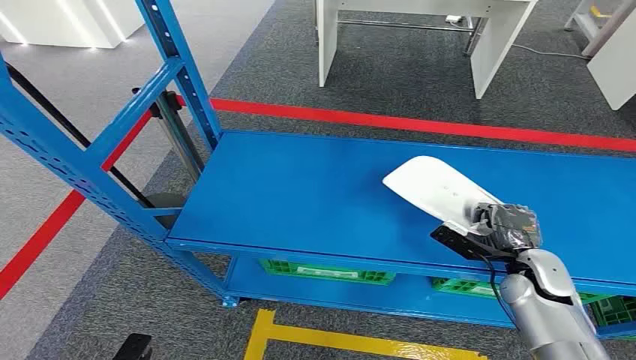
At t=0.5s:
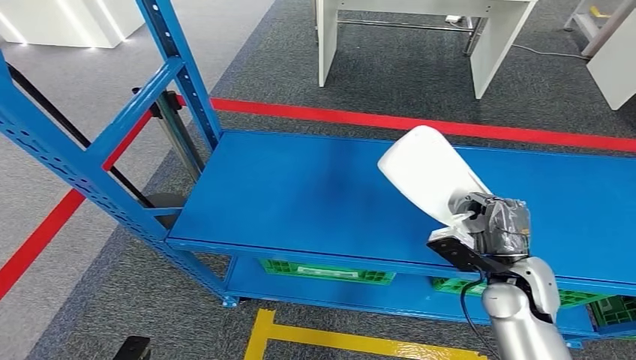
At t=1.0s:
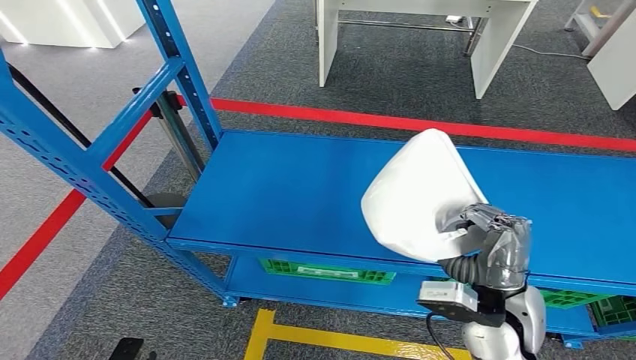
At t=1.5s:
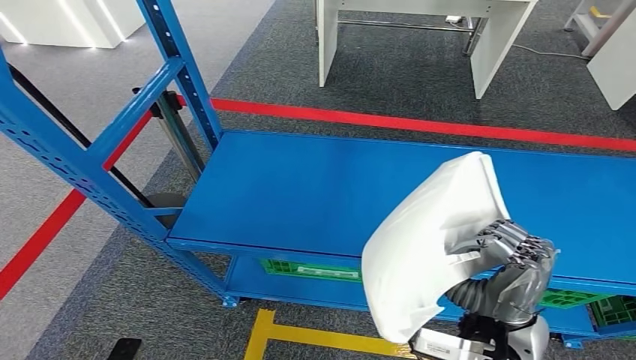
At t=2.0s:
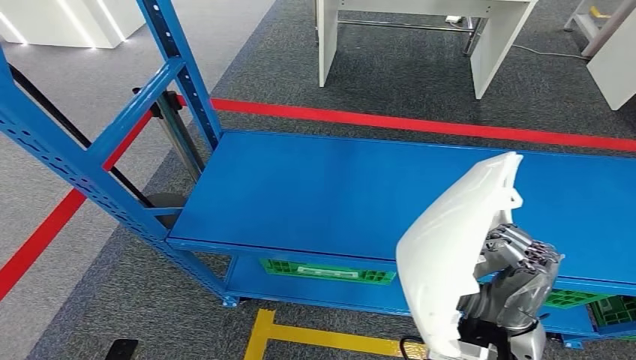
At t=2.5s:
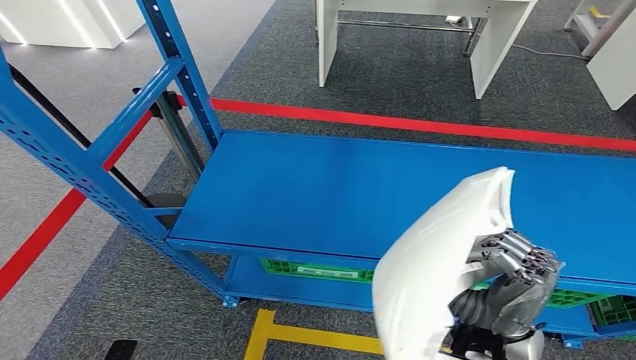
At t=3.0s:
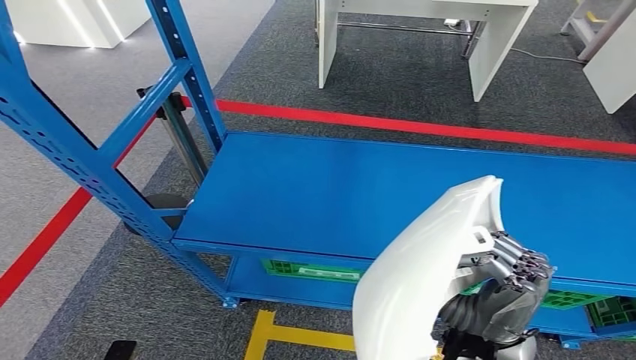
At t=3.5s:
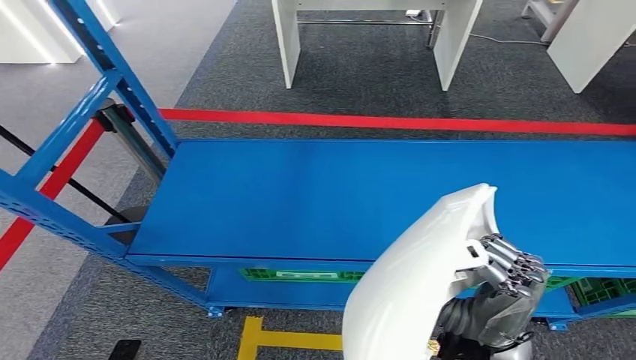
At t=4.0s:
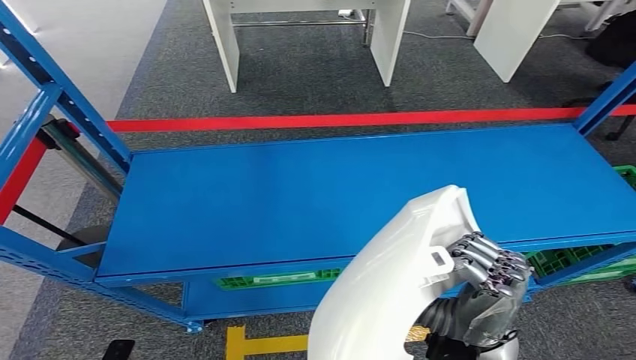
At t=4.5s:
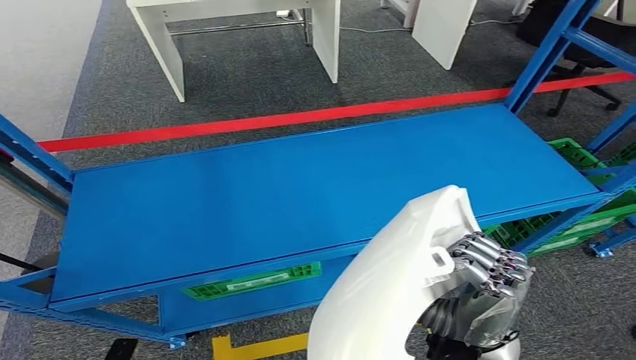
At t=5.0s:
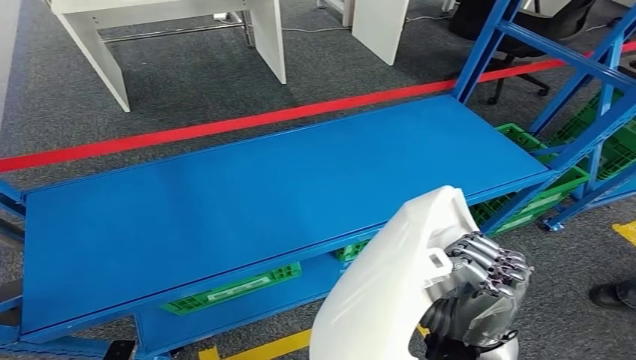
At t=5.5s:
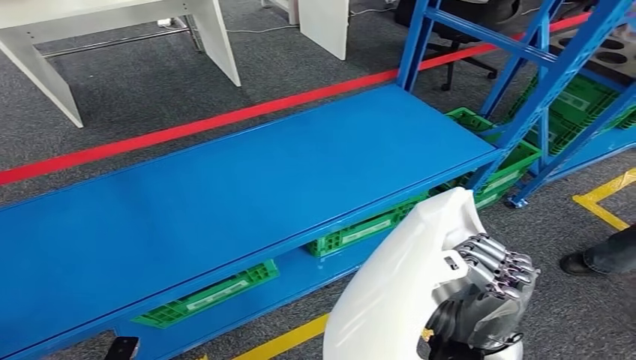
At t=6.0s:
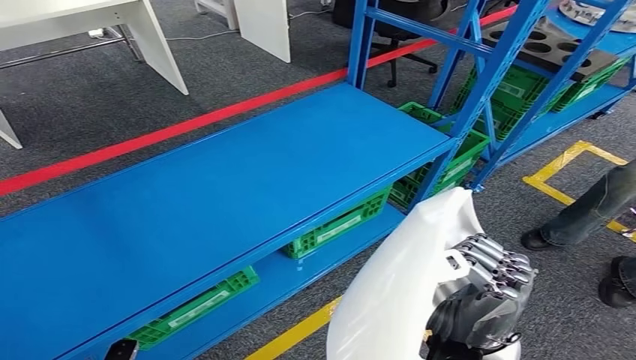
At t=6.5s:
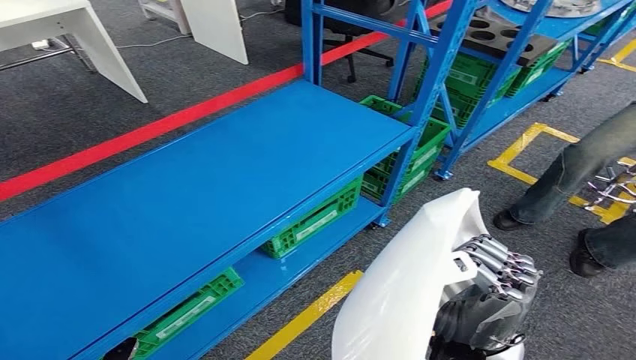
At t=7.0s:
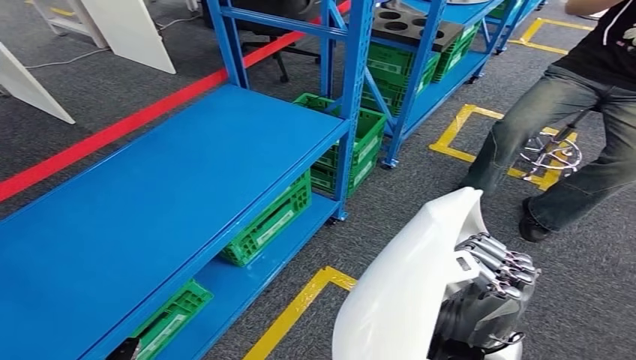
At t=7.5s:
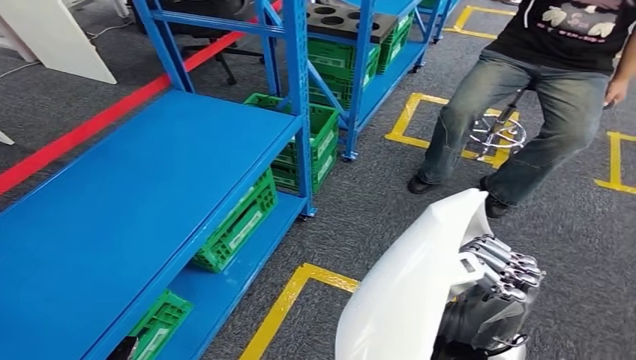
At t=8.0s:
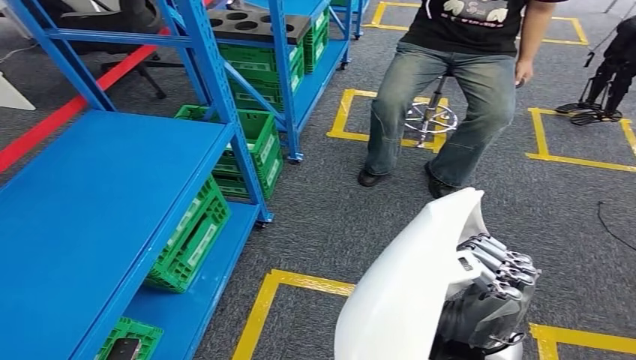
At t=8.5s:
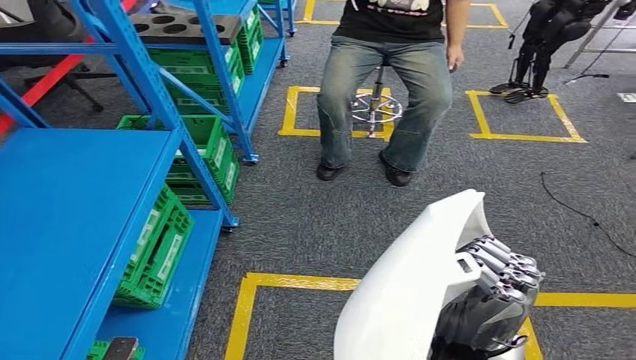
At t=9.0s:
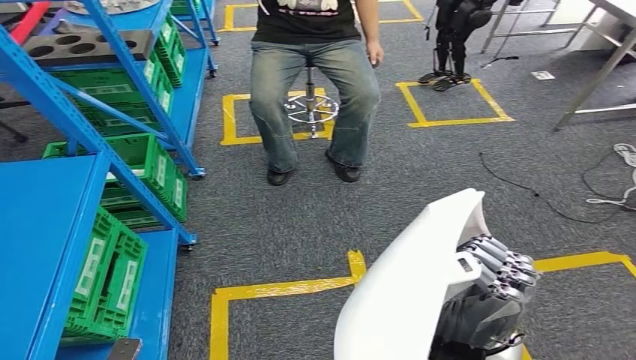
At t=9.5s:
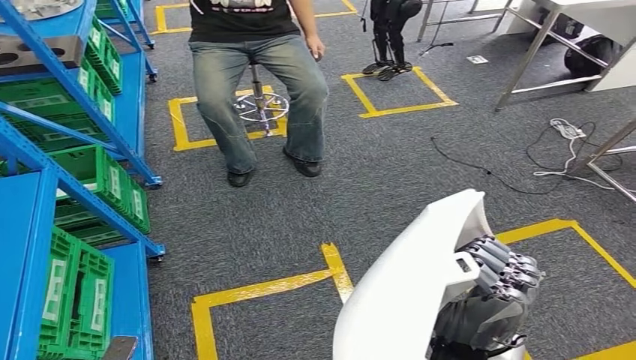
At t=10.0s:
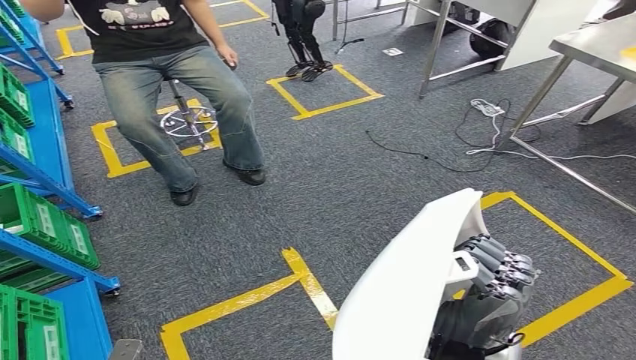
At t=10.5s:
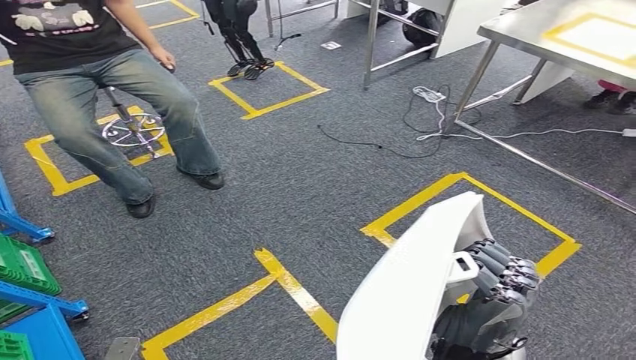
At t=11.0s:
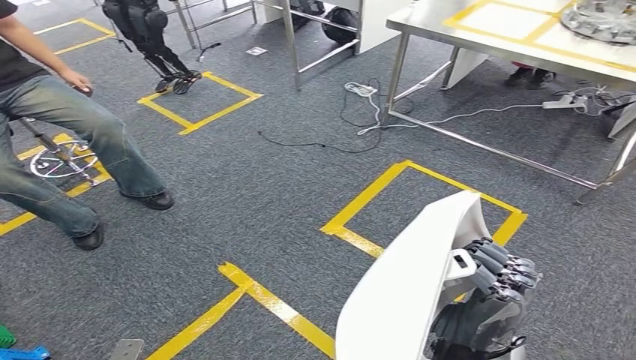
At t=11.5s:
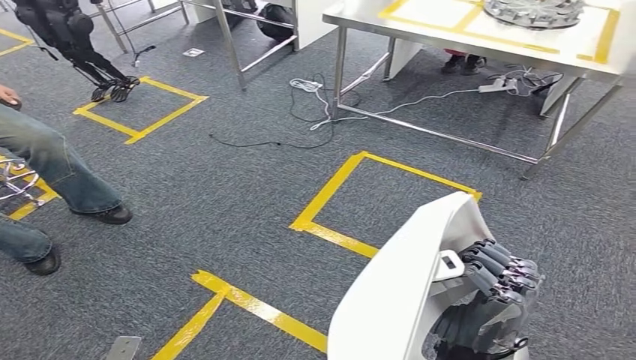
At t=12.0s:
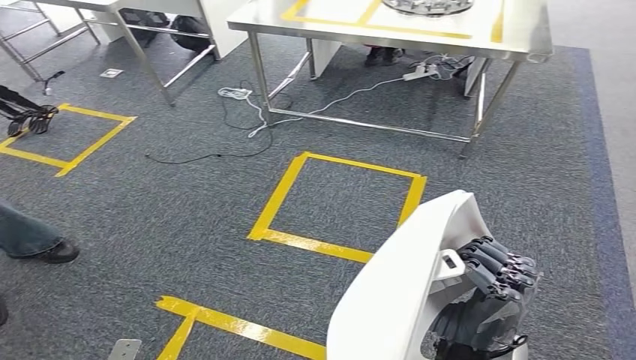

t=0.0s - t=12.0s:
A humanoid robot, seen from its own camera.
Step, t=0.0s - t=1.0s: Pick up the small component from the shelf.

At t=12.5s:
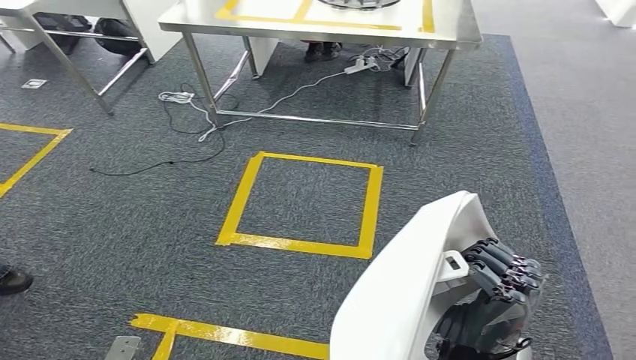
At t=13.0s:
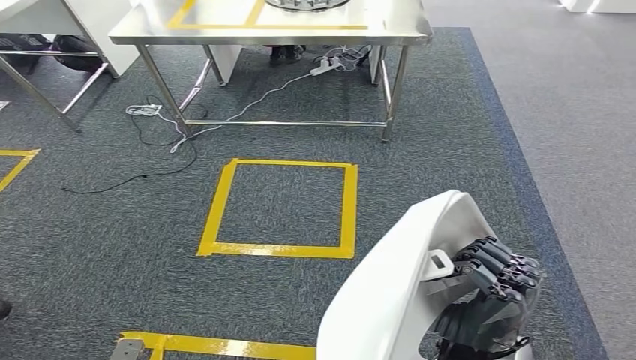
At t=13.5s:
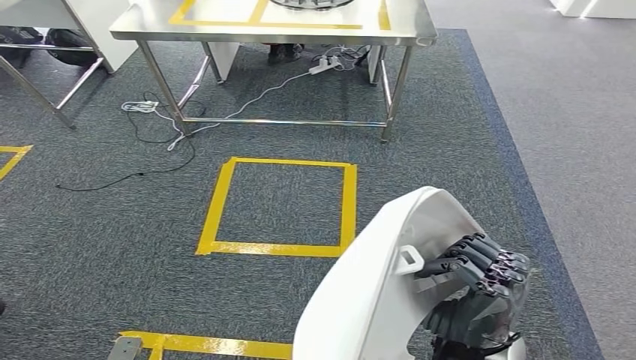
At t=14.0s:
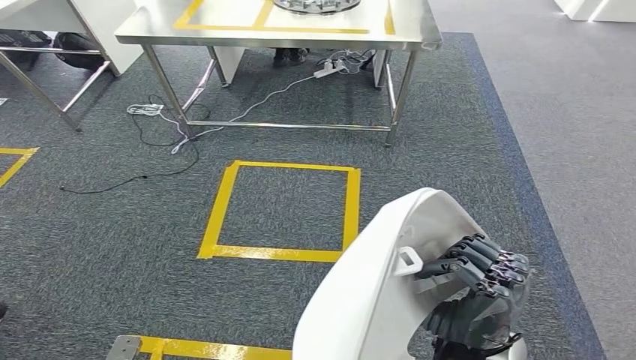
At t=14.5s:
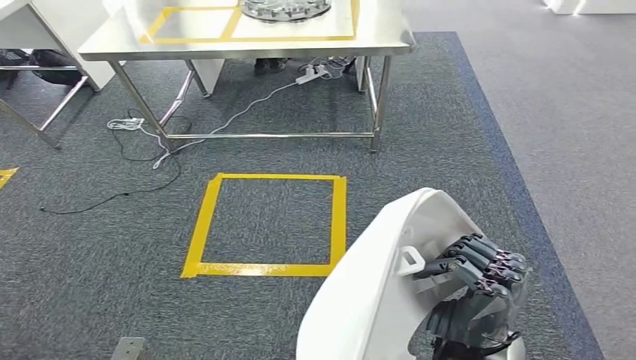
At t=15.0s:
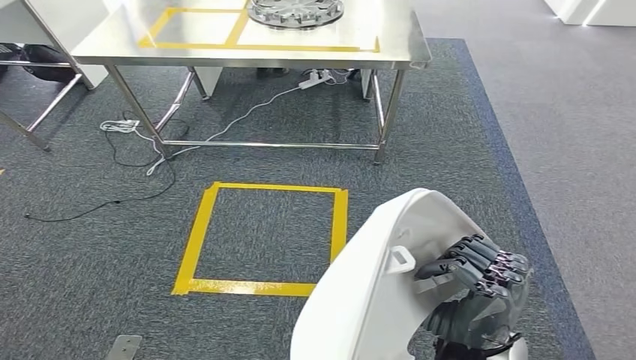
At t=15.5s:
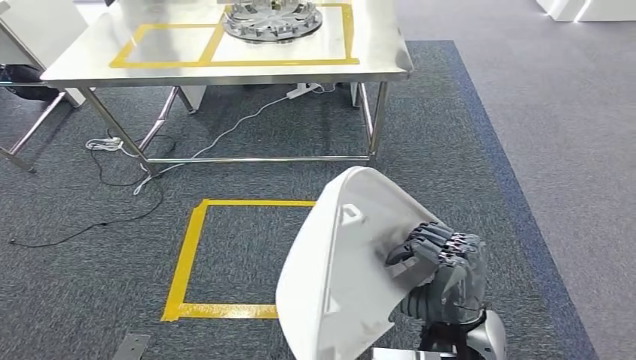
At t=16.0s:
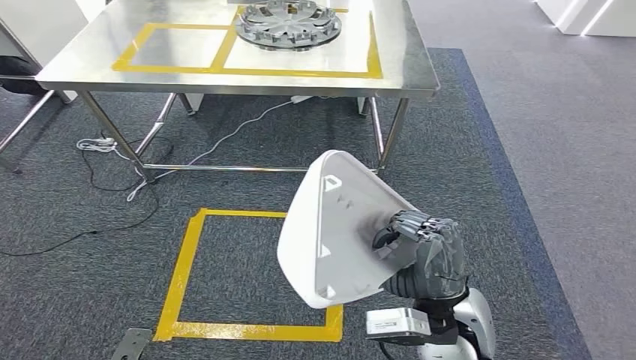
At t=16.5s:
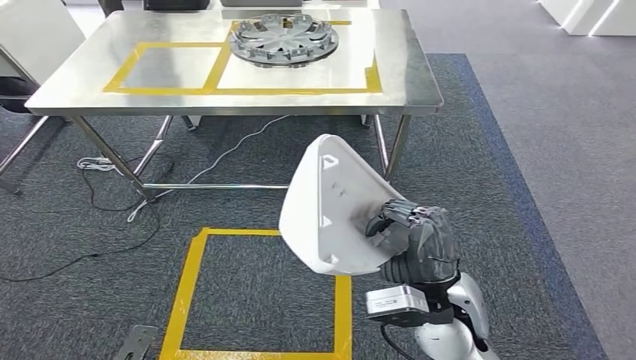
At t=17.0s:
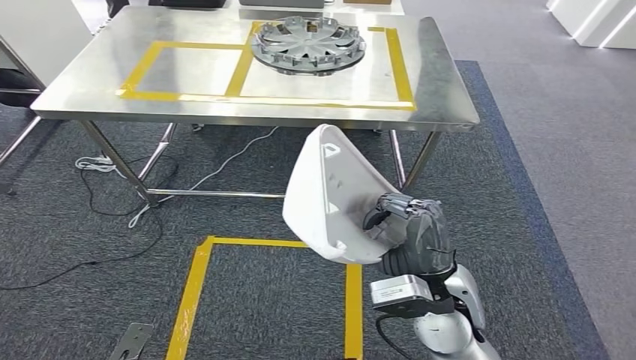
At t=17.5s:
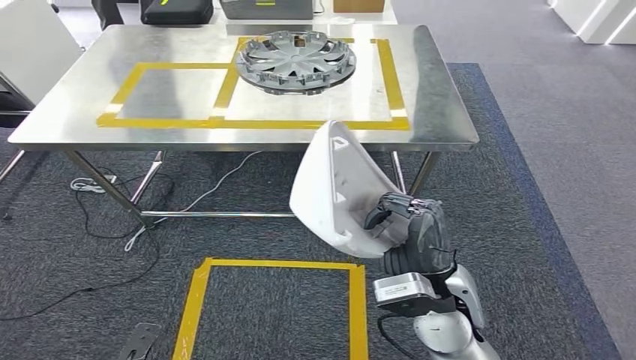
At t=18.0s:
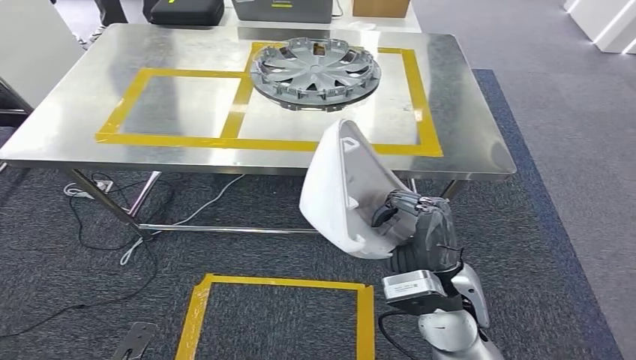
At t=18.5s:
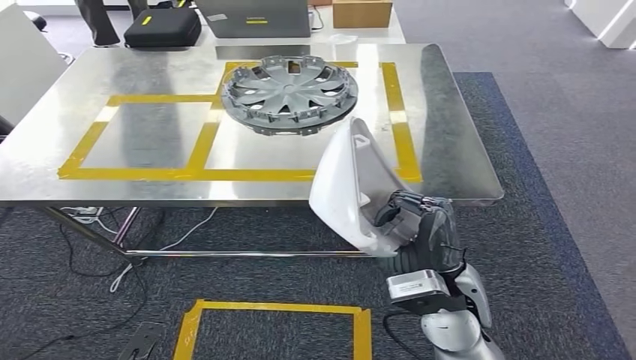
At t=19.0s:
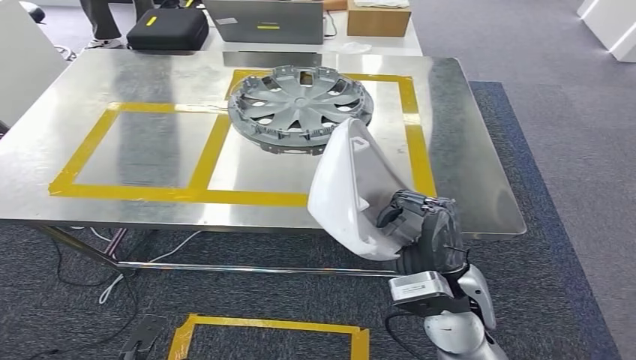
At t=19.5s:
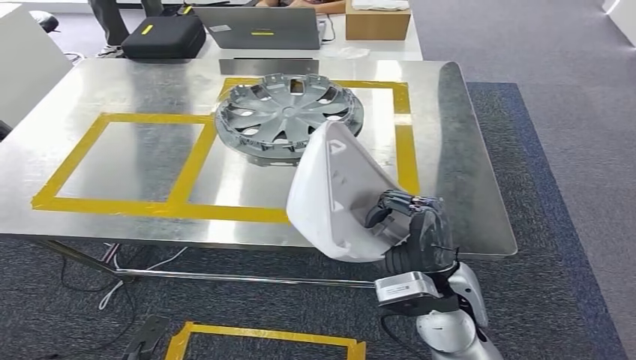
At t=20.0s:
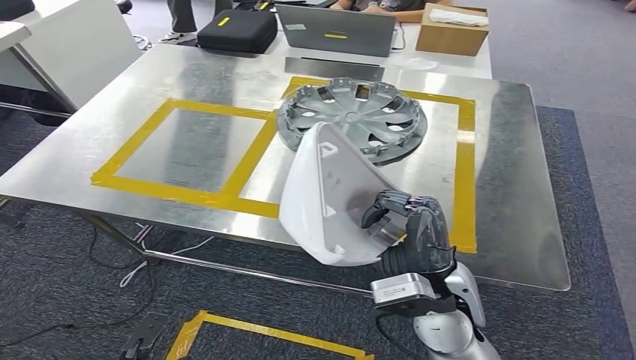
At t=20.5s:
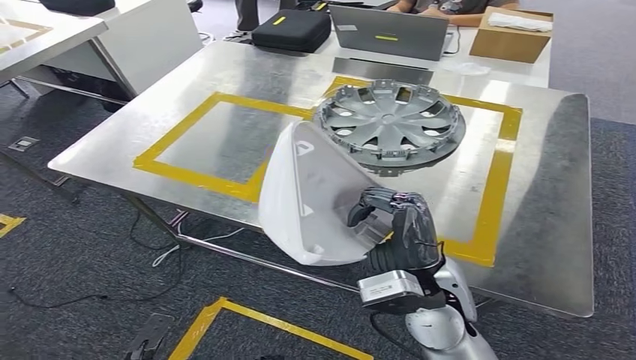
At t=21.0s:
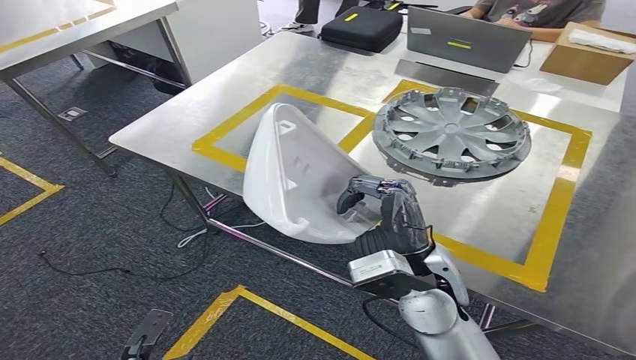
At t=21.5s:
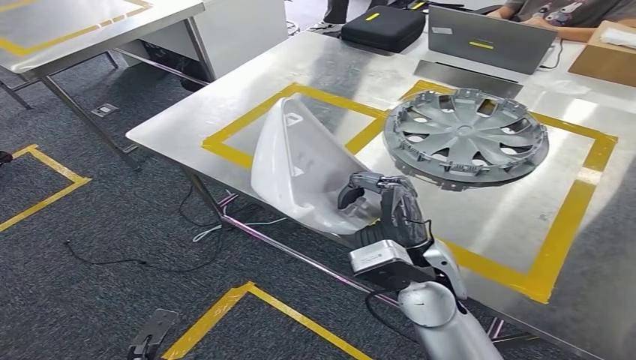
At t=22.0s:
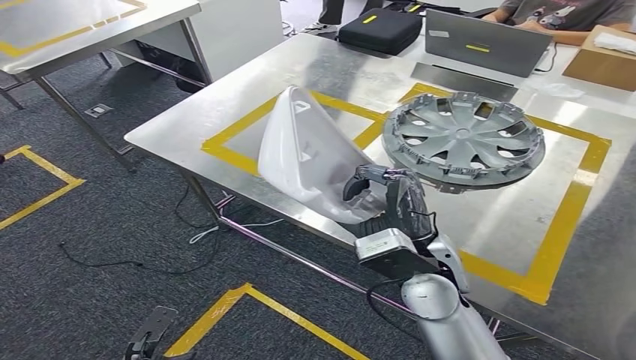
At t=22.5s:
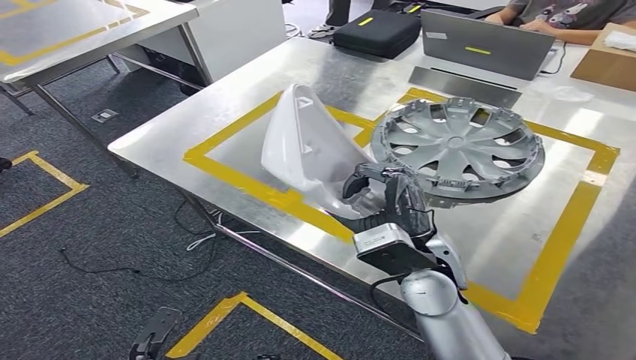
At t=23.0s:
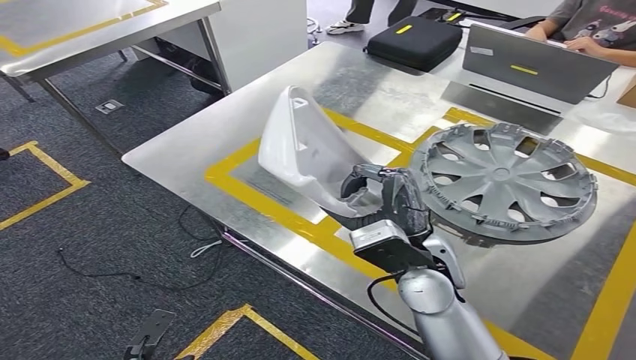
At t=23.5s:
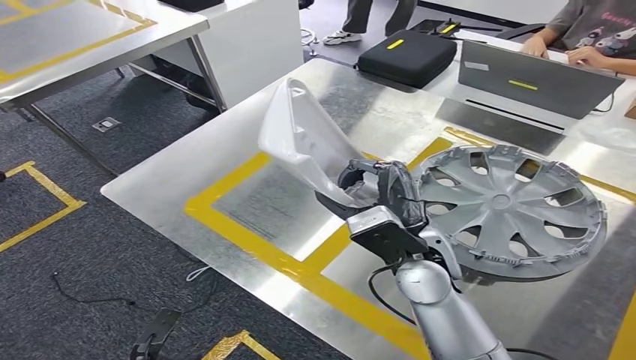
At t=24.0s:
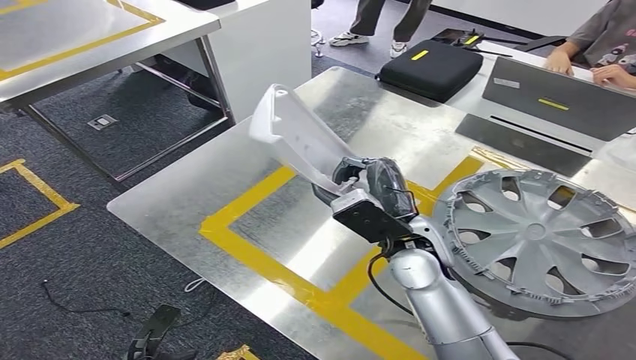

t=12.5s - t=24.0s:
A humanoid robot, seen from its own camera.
Step, t=12.5s - t=19.0s: Move the small component to the workbench.
